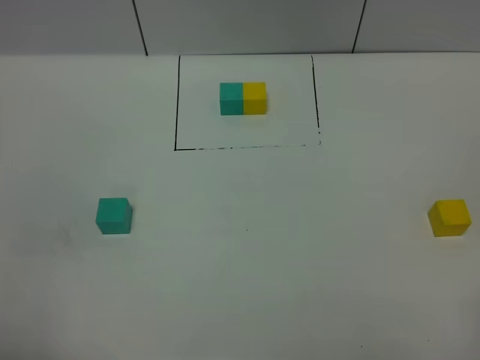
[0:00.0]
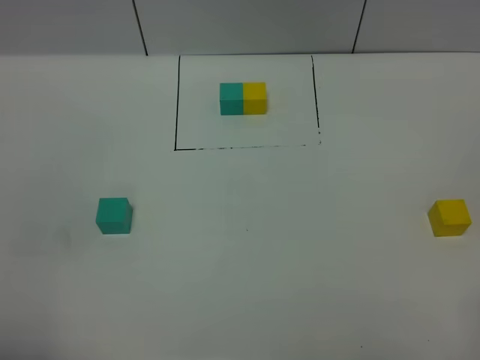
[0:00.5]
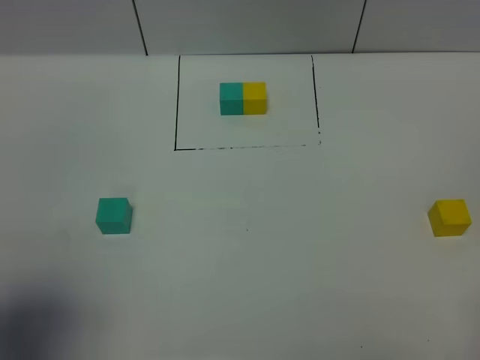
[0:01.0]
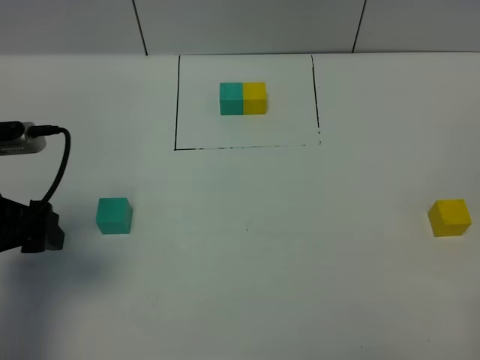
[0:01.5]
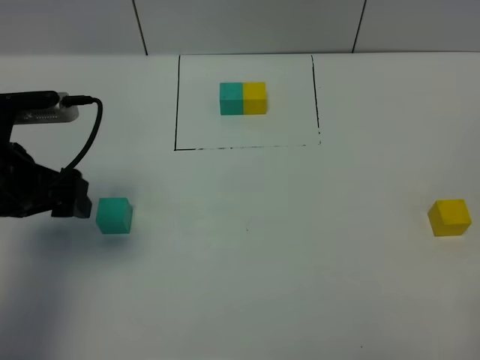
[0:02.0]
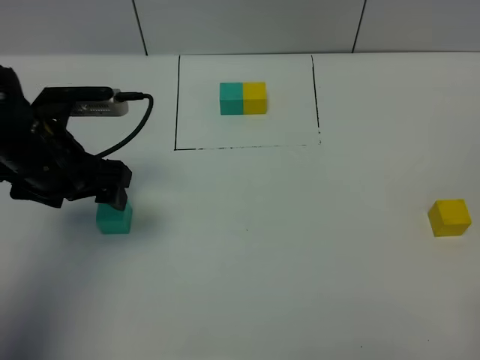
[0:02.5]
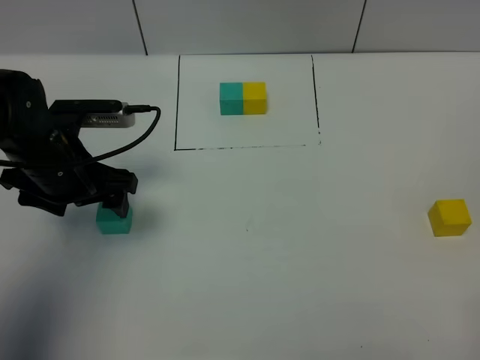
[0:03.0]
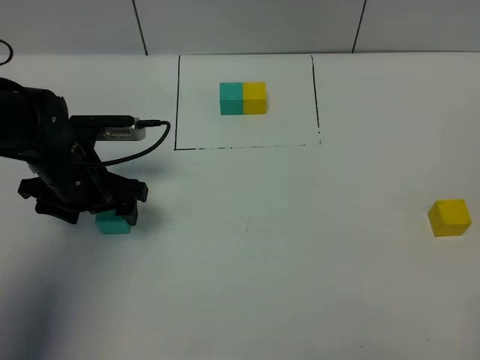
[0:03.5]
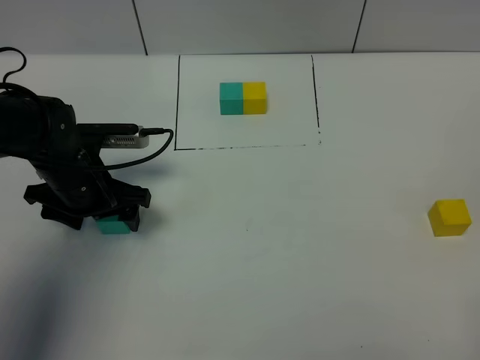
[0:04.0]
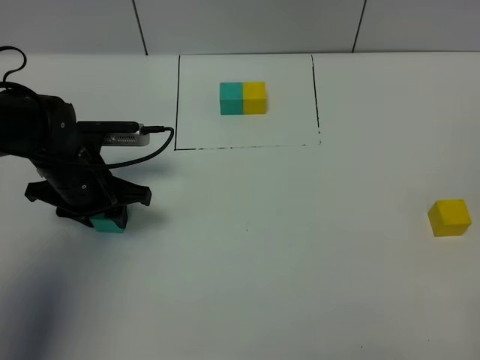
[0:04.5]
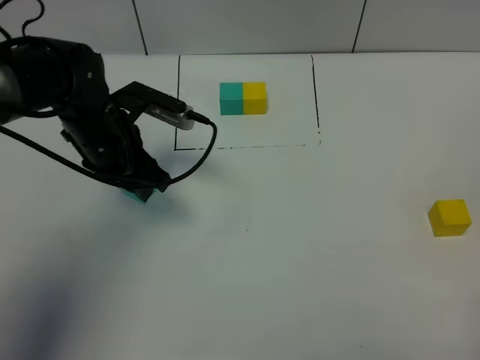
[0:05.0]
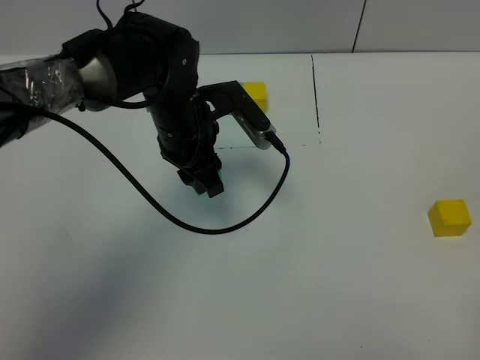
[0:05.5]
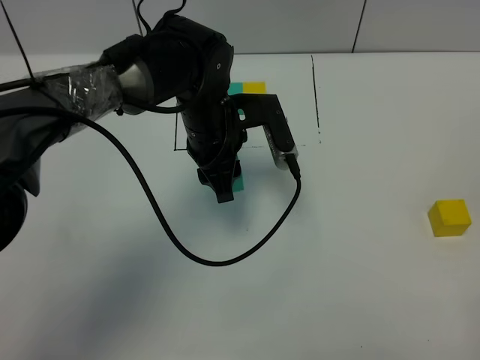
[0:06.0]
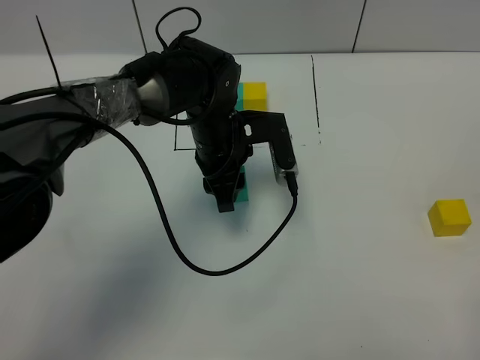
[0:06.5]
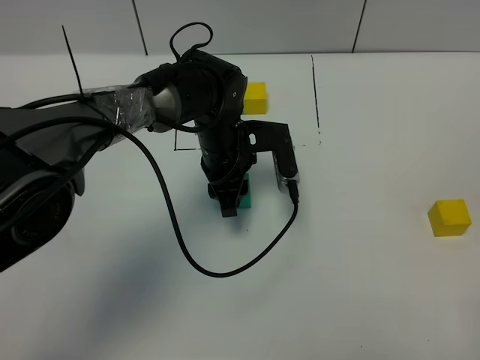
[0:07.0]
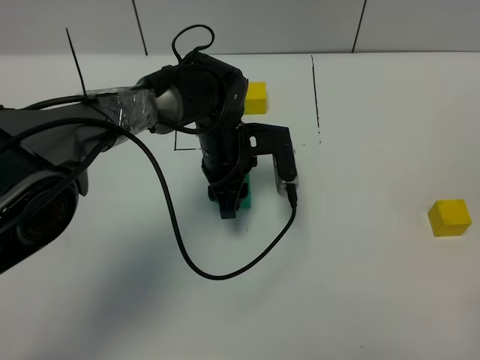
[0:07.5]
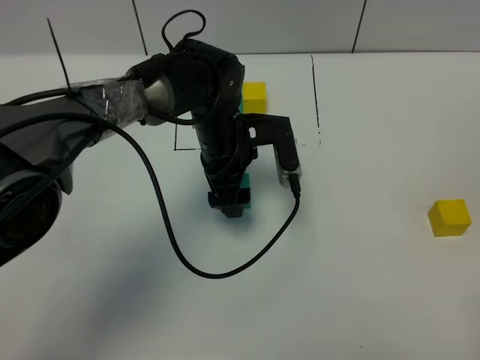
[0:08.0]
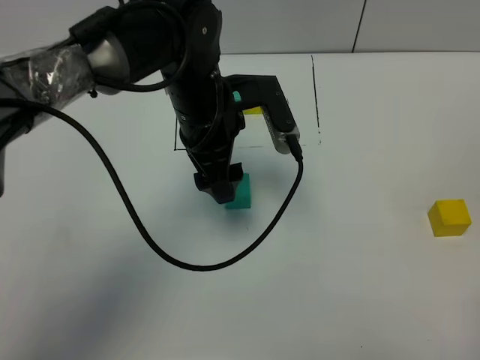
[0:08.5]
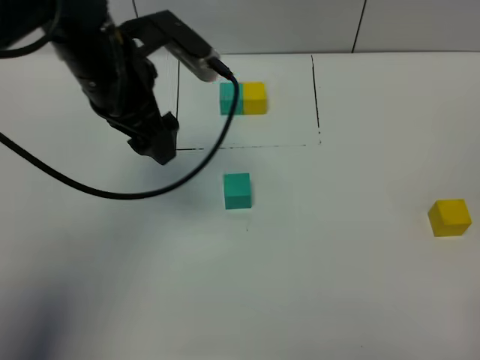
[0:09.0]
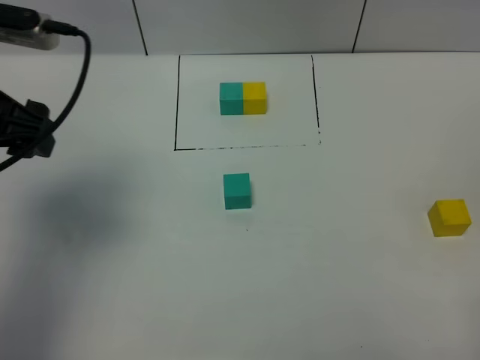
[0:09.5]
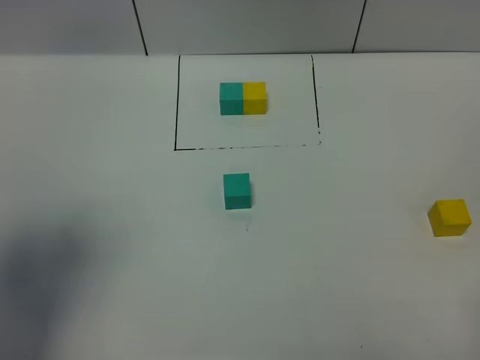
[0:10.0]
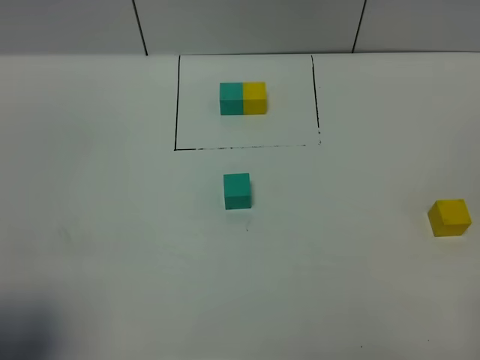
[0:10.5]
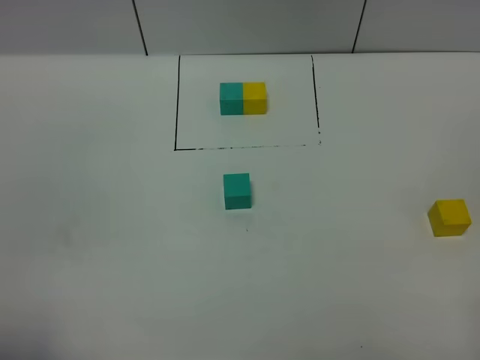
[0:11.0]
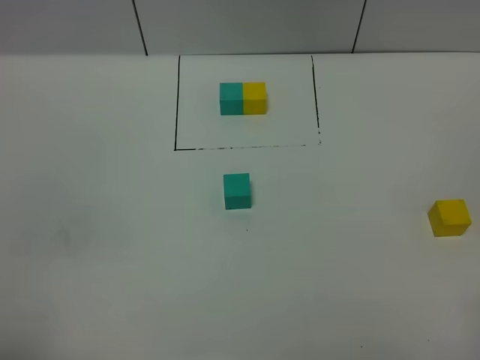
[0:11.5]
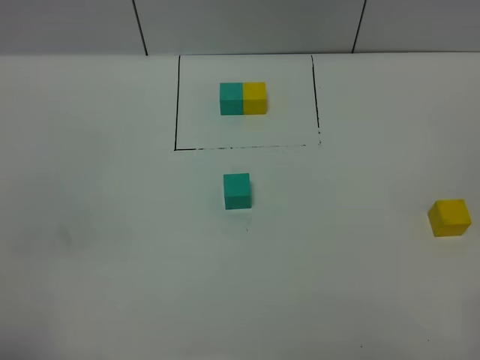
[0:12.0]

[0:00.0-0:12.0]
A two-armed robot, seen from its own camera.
Task of the whole recording: According to the building block template in front, assemble the scattered blocks together.
Step, 0:01.0 to 0:08.0: Put the green cube in the center of the table.
0:00.0 to 0:02.0: The left gripper goes approximately 25 cm forward.
0:02.0 to 0:04.0: The left gripper heads downward and forward, covering some 15 cm.
0:04.0 to 0:06.0: The left gripper goes some 15 cm to the right, and closes.
0:06.0 to 0:08.0: The left gripper opens its fingers.
0:08.0 to 0:10.0: The left gripper moves to the left, upward and backward, about 40 cm.
0:10.0 to 0:12.0: The left gripper is displaced backward and downward by some 20 cm.

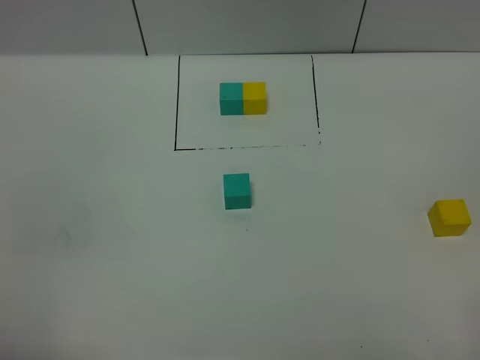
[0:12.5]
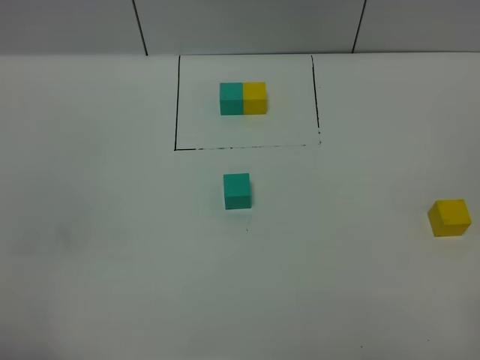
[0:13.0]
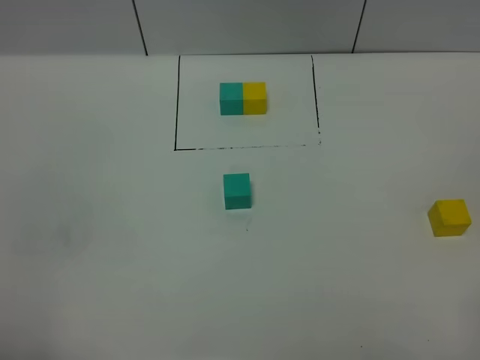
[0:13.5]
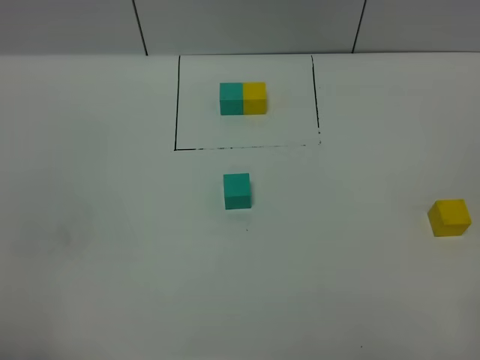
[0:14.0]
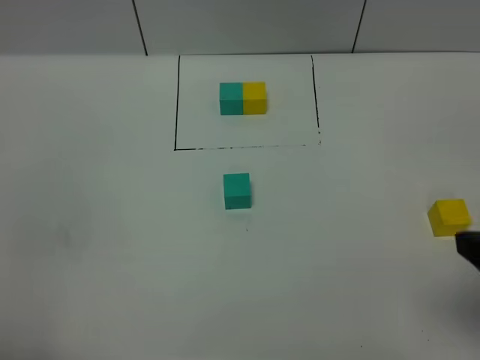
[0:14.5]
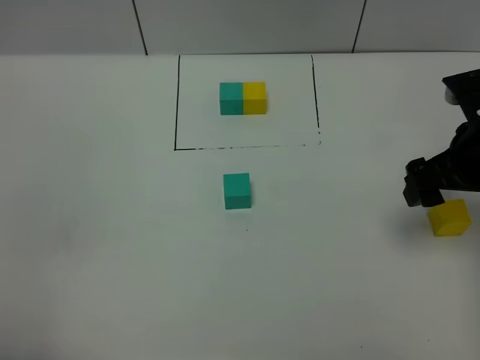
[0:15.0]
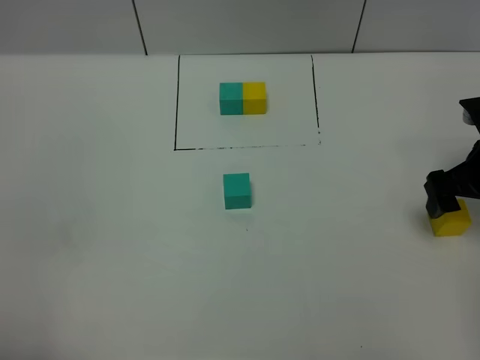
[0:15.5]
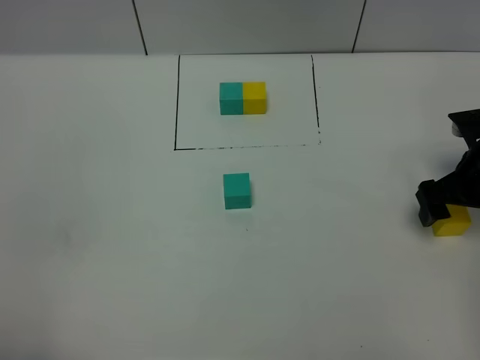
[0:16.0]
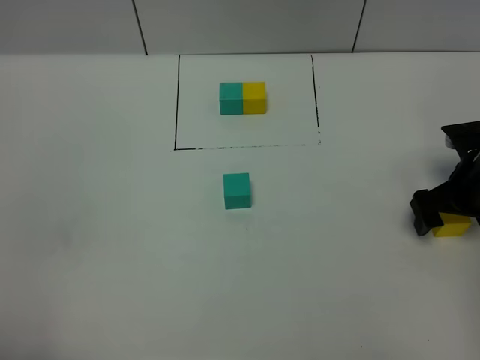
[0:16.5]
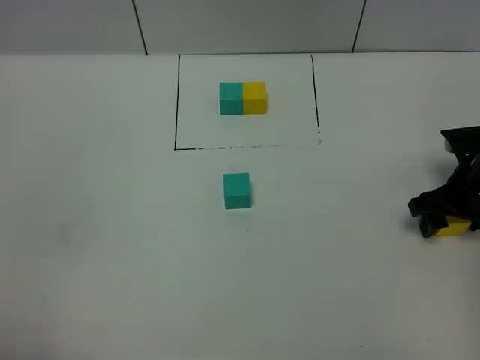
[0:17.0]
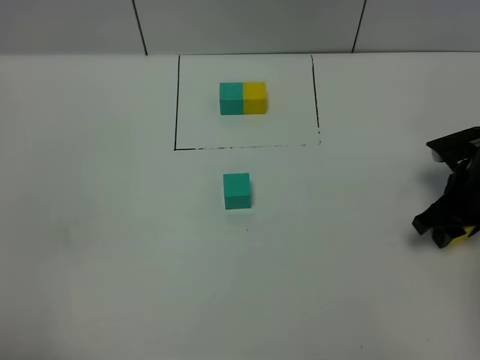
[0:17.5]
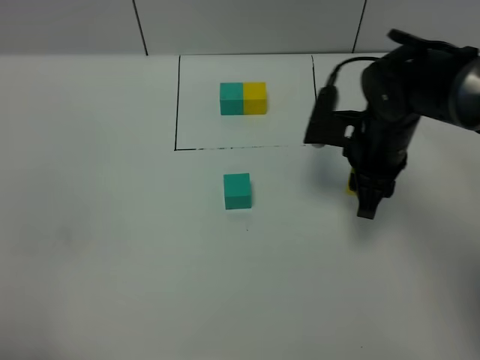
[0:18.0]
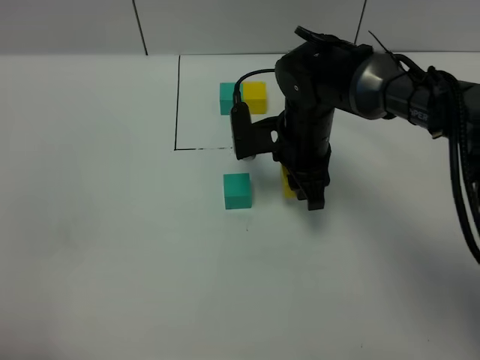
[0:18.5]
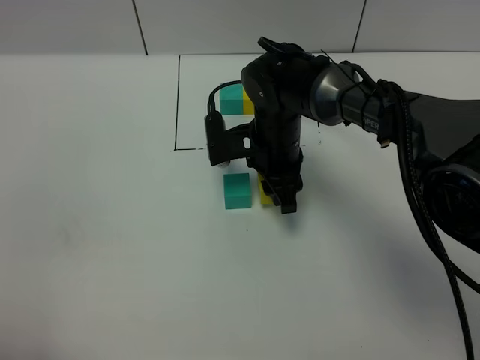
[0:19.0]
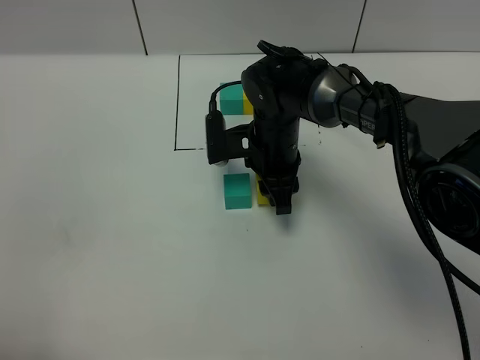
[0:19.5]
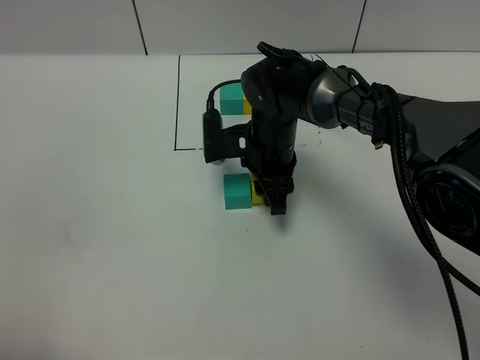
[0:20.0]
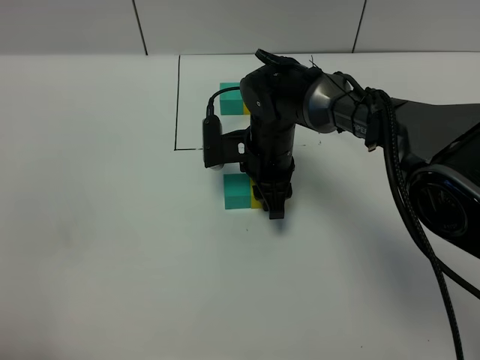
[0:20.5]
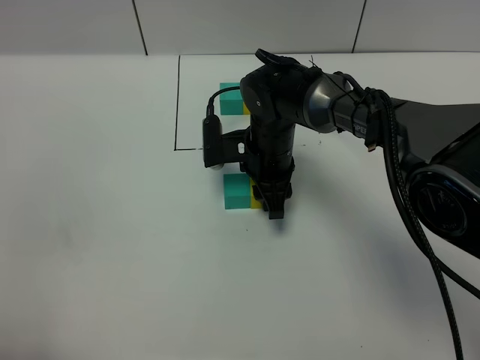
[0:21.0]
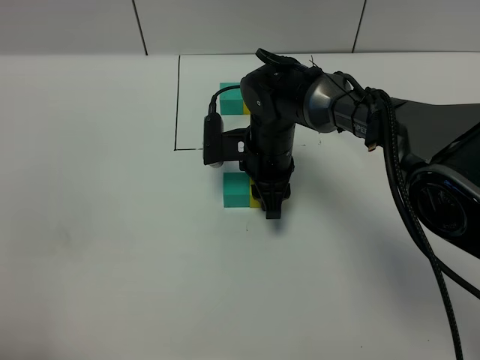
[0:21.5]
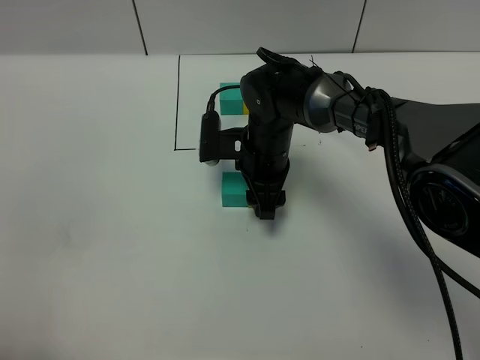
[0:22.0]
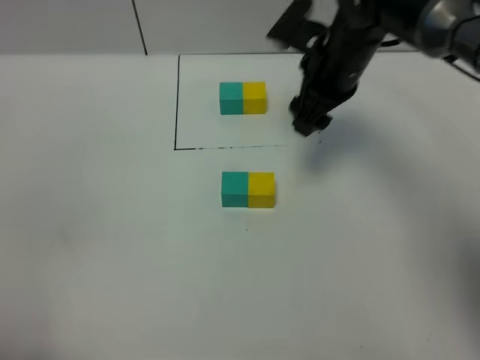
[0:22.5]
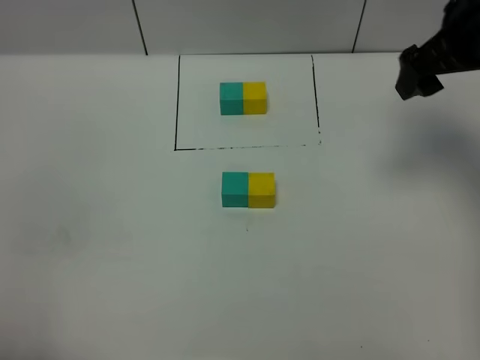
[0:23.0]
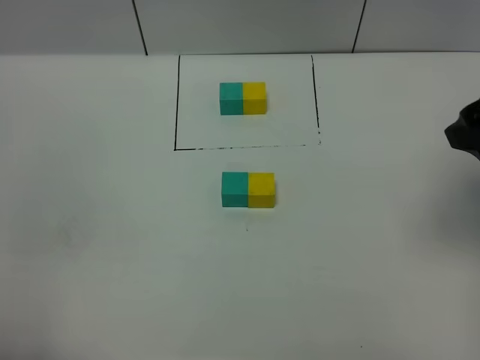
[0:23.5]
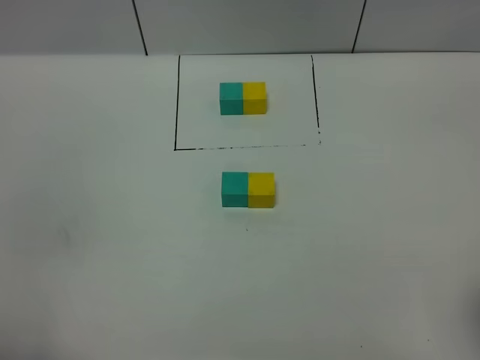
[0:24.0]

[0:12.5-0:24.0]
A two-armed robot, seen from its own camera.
Task of the whole recording: According to the building block template in front, assemble the scattered blocks together.
Step, 0:12.5 to 0:22.0: Put the yellow cube on the right of the green cube.
0:12.5 to 0:14.5: The right gripper shifts roughly 15 cm forward.
0:14.5 to 0:16.5: The right gripper goes approximately 25 cm forward and downward.
0:16.5 to 0:18.5: The right gripper travels to the left by roughly 20 cm, and closes up.
0:18.5 to 0:22.0: The grippers make only small movements.
0:22.0 to 0:24.0: The right gripper travels backward, upward and to the right by some 50 cm, and opens its fingers.

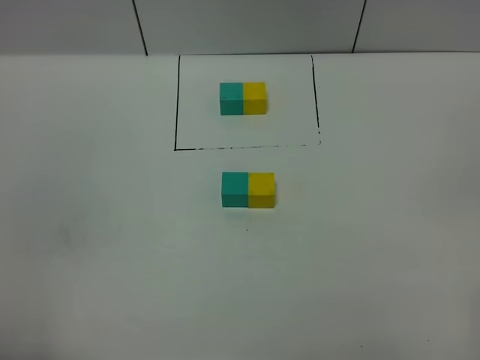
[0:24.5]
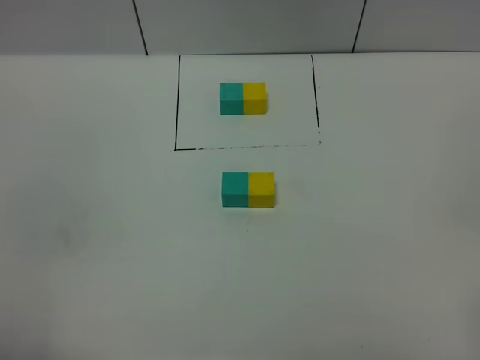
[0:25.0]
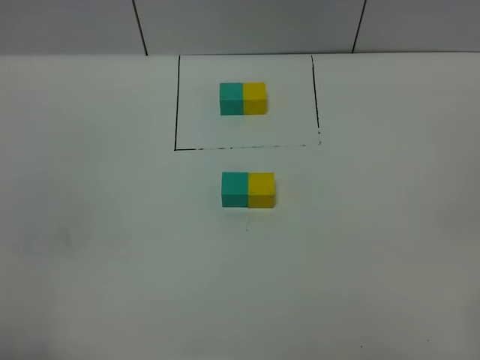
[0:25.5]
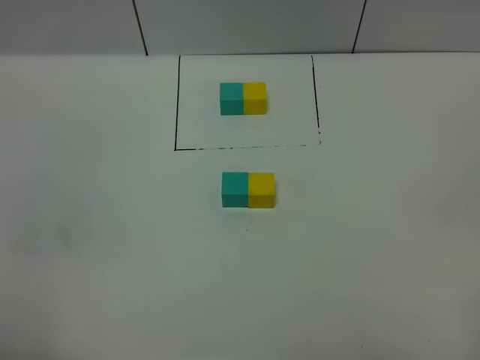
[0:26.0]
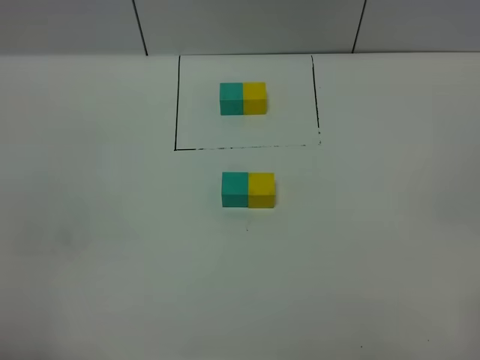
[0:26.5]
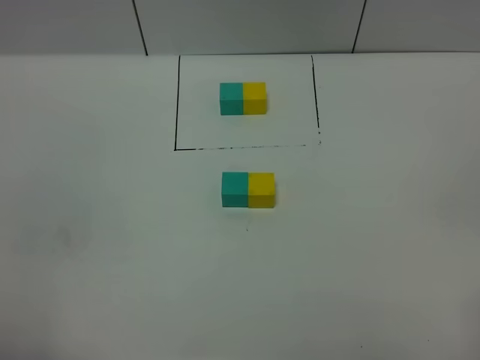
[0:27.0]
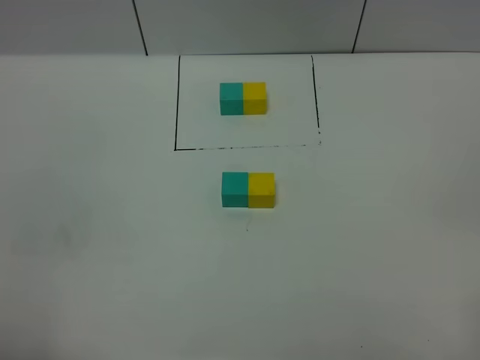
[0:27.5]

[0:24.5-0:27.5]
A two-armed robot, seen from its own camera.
Task of the whole recording: According to the building block template in front, assemble the scattered blocks together.
0:26.0 to 0:27.5: Both grippers stay put.
